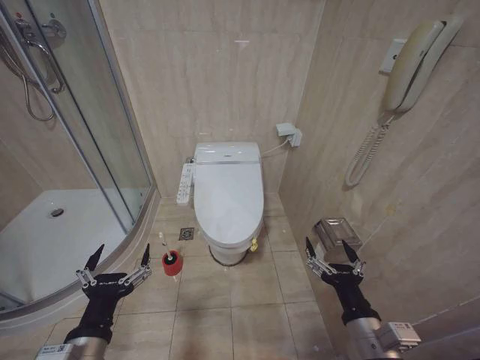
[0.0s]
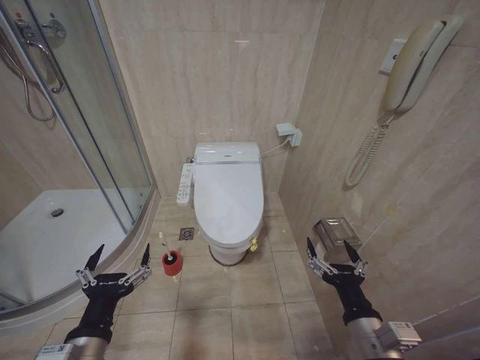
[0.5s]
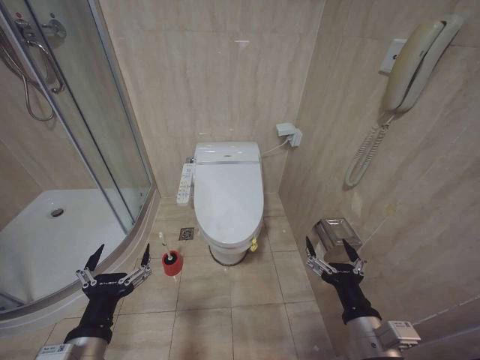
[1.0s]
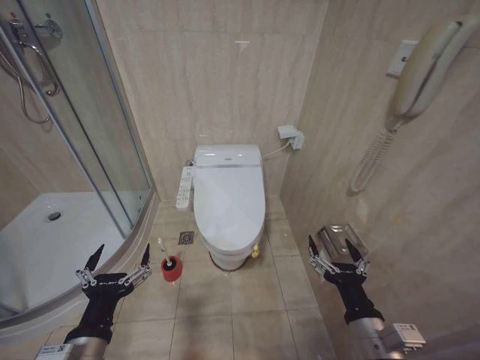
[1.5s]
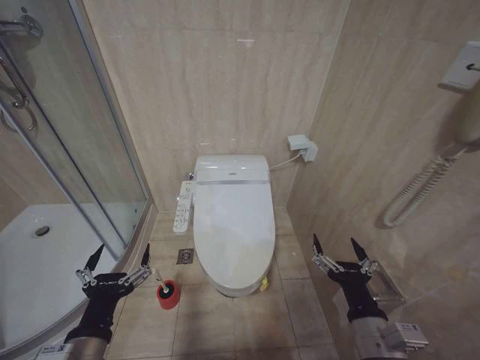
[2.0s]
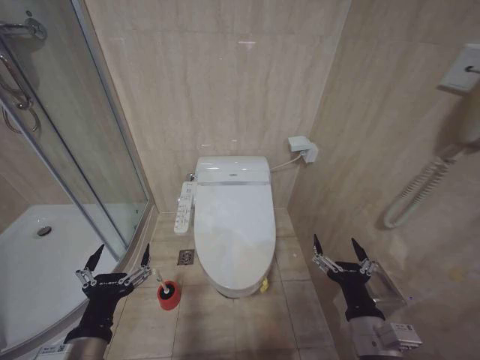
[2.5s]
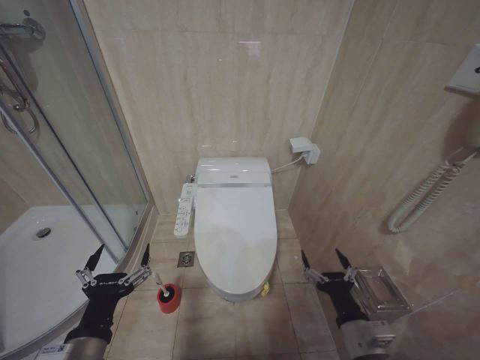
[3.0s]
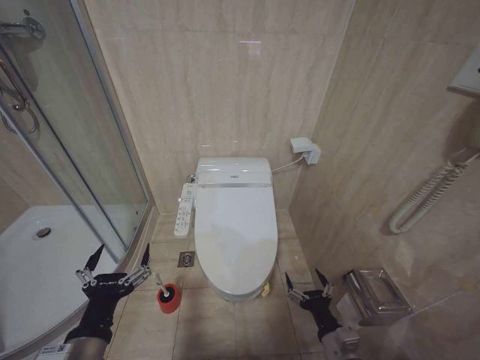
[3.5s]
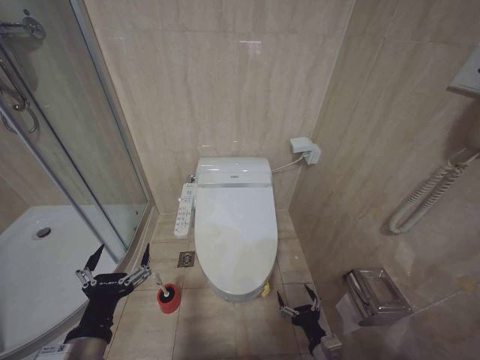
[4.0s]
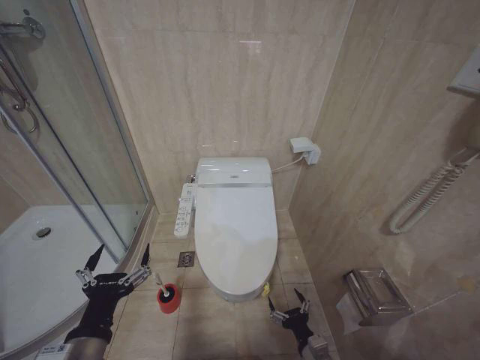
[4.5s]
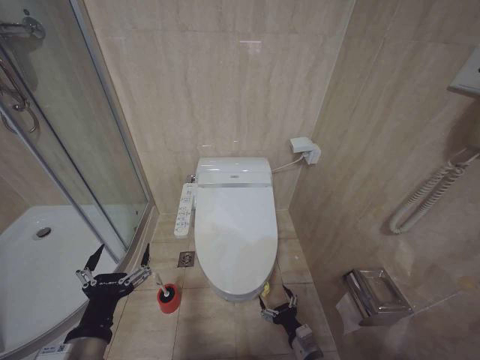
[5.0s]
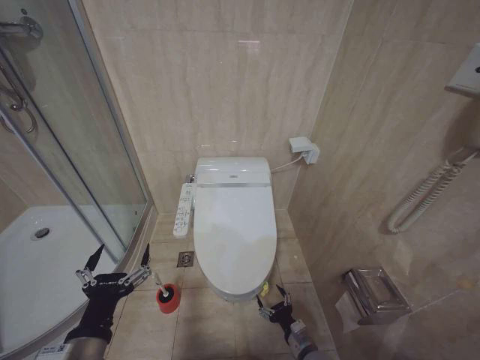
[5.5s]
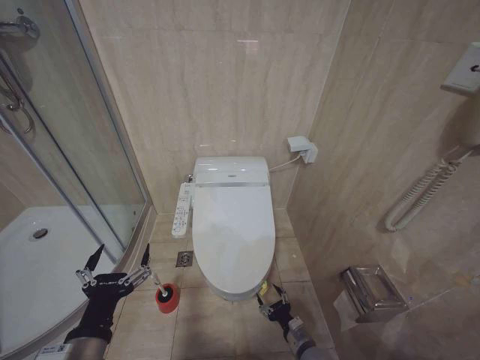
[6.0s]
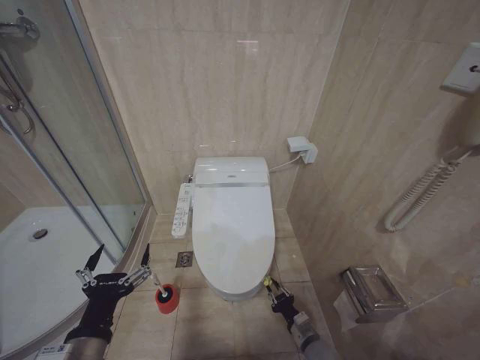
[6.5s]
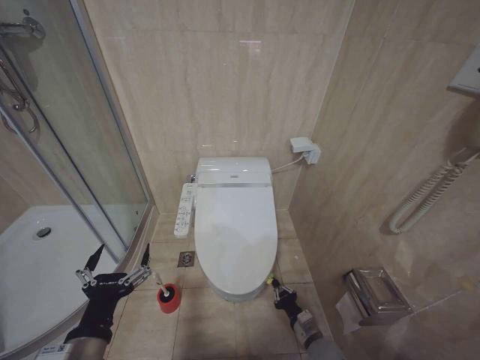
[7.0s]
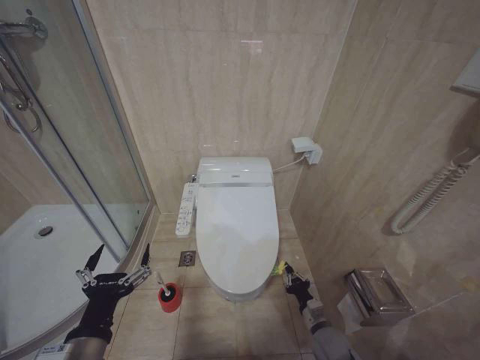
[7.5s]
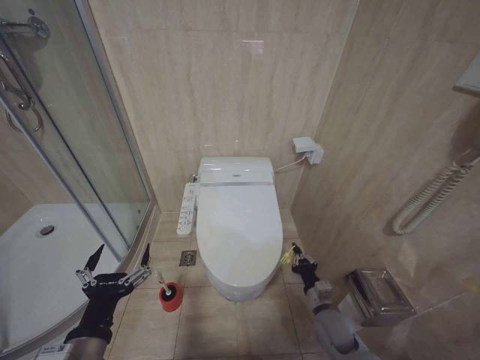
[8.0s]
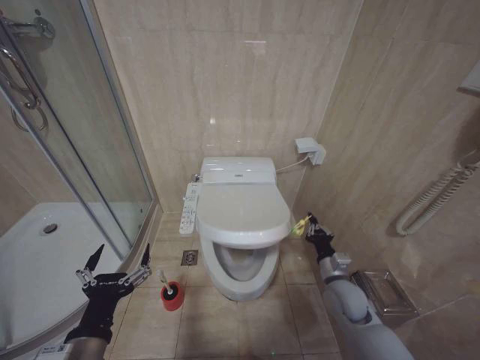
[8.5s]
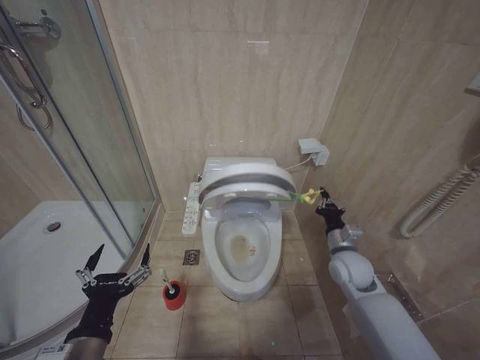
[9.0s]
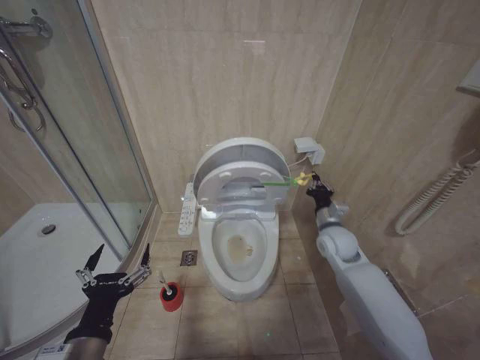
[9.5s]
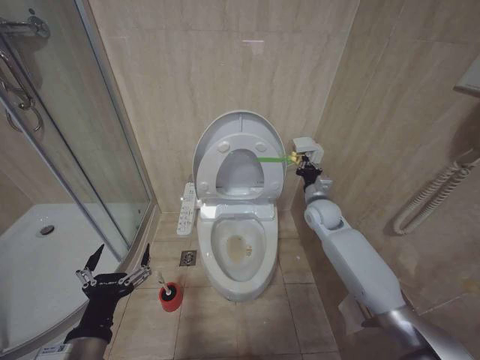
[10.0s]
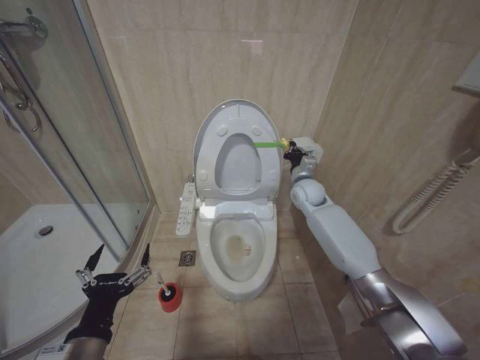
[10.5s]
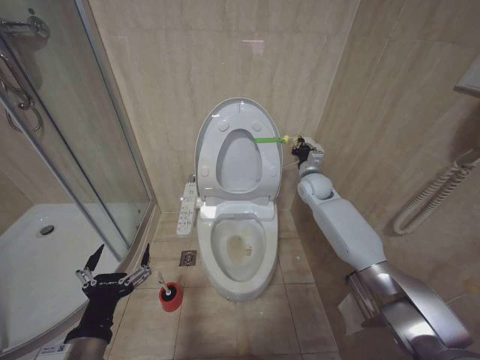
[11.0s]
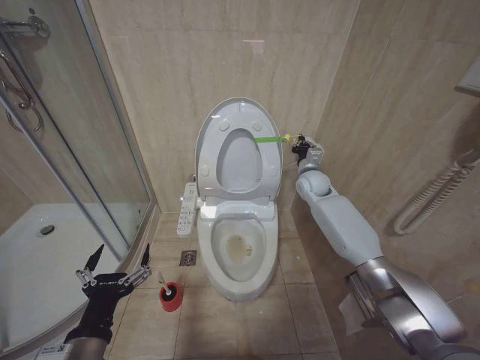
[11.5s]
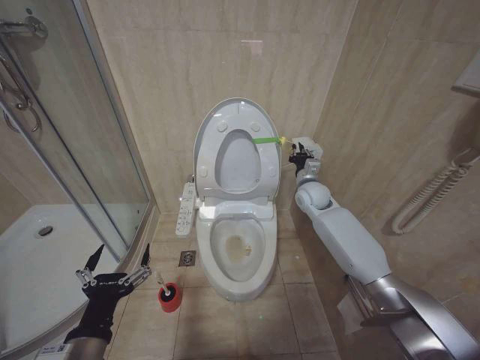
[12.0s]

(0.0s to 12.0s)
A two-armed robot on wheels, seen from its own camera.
Task of the whole recording: Open the toilet lid, clean the toilet bowl with a toilet brush, close the toilet lid, and flush.
2.0s - 4.0s: The right gripper goes roughly 15 cm downward.
4.0s - 6.0s: The right gripper moves downward and forward, roughly 10 cm.
6.0s - 8.0s: The right gripper is displaced upward and forward by some 10 cm, and closes its fingers.
8.0s - 10.0s: The right gripper is displaced upward and forward by about 30 cm.
10.0s - 12.0s: The right gripper goes approximately 5 cm forward.

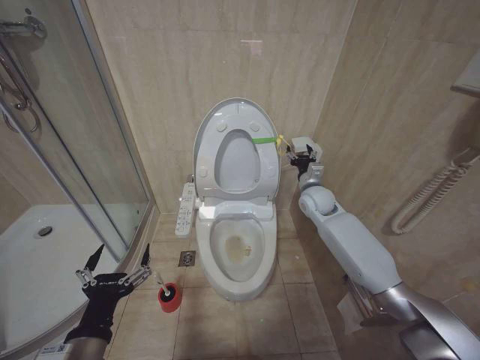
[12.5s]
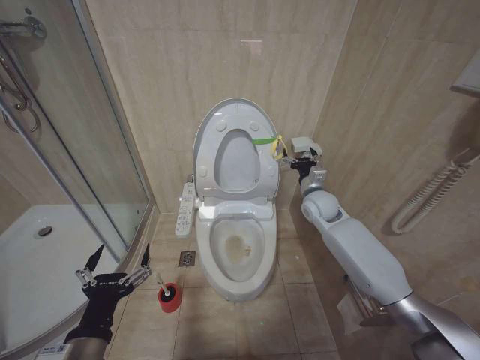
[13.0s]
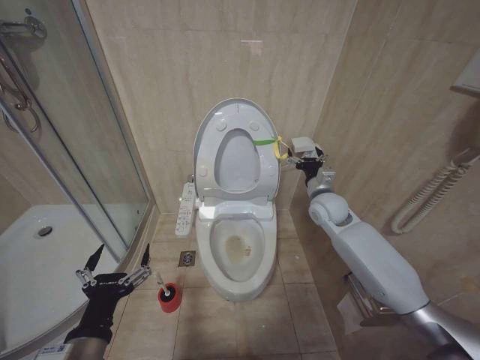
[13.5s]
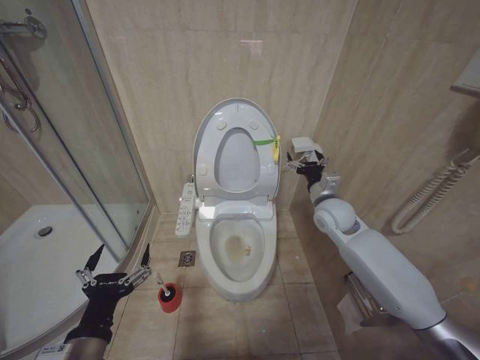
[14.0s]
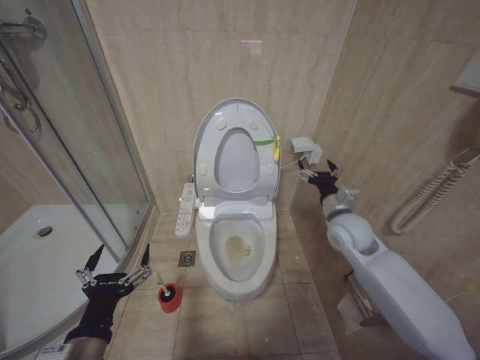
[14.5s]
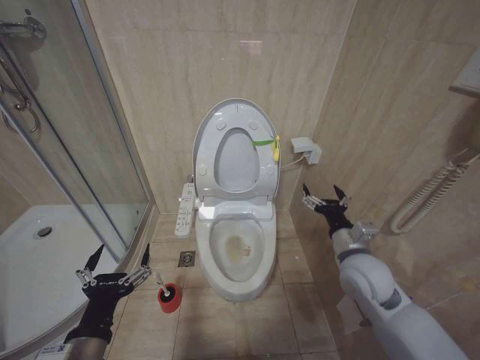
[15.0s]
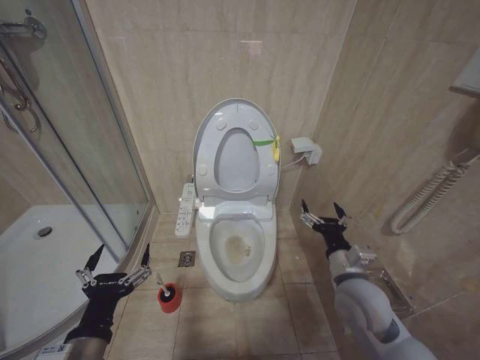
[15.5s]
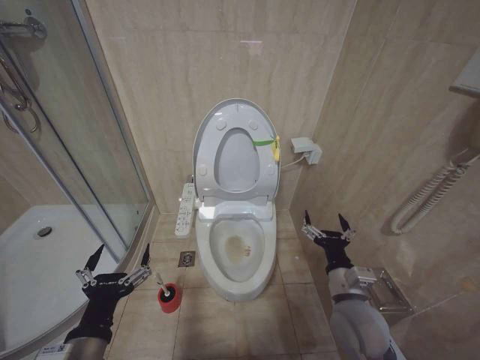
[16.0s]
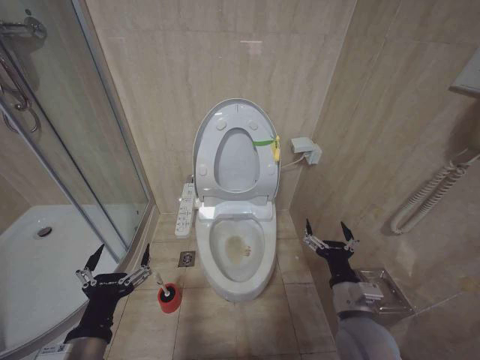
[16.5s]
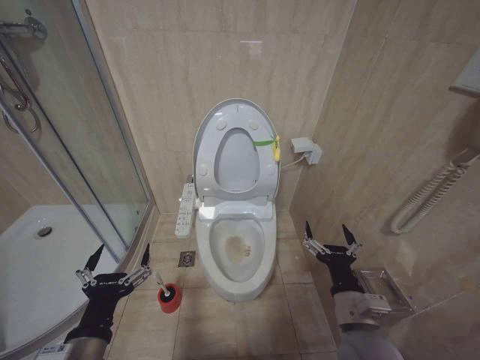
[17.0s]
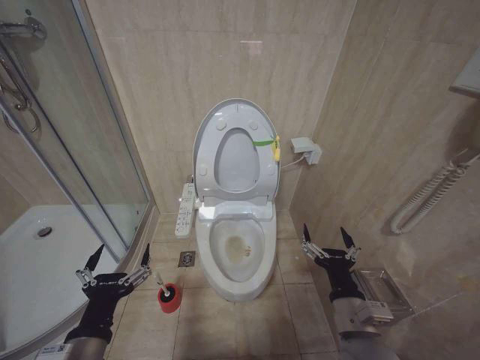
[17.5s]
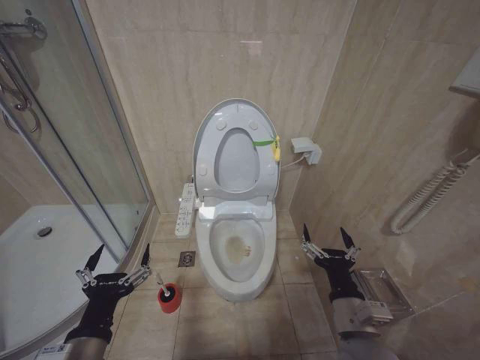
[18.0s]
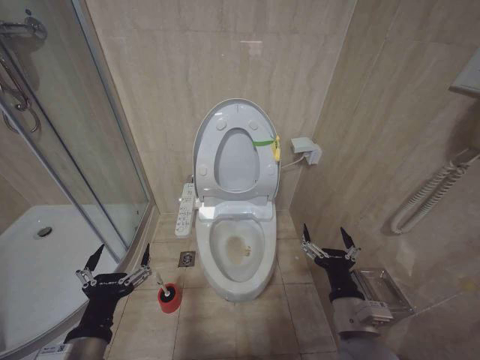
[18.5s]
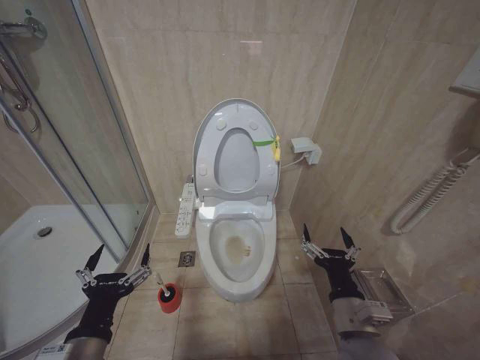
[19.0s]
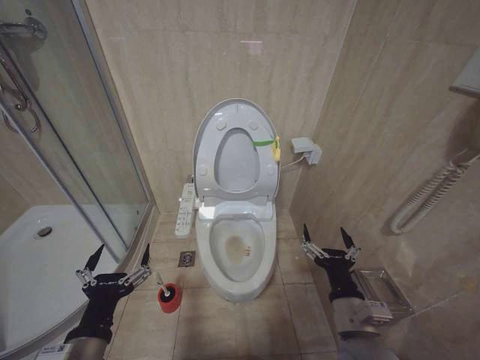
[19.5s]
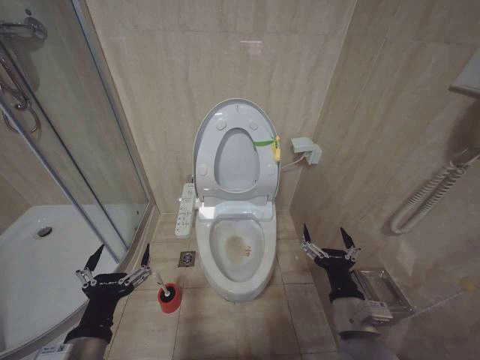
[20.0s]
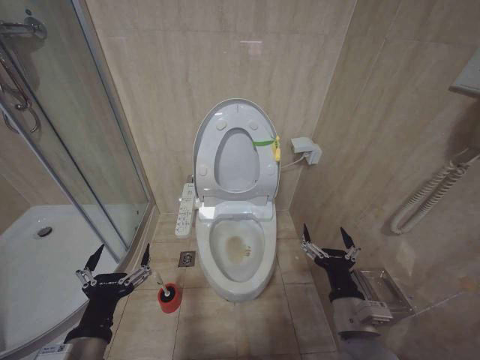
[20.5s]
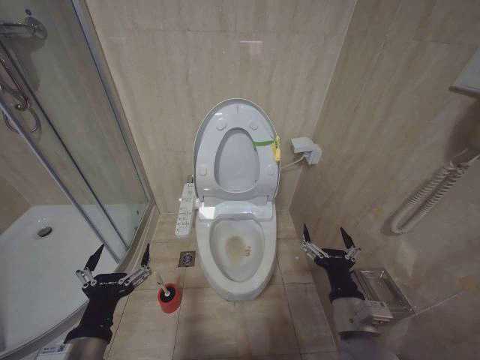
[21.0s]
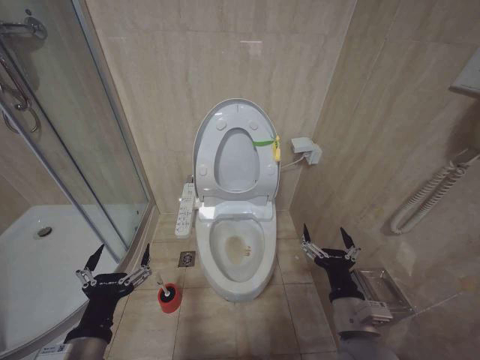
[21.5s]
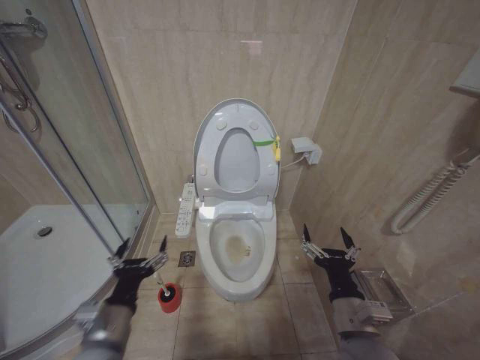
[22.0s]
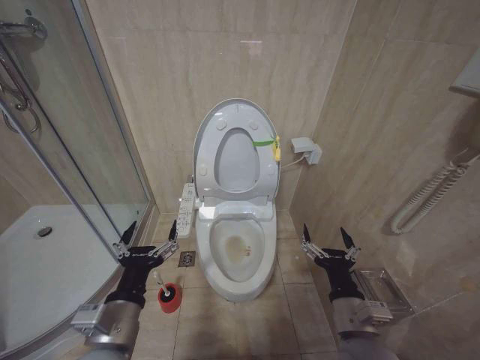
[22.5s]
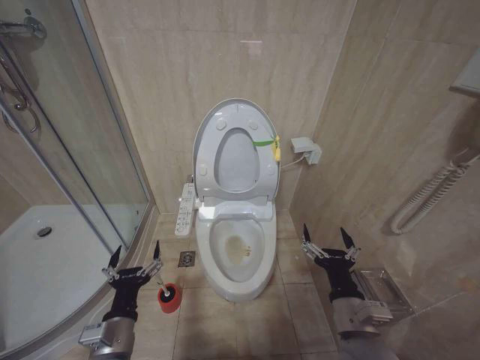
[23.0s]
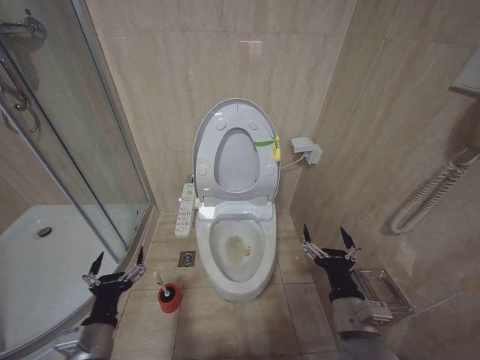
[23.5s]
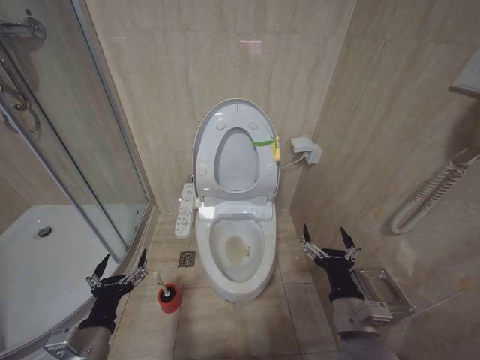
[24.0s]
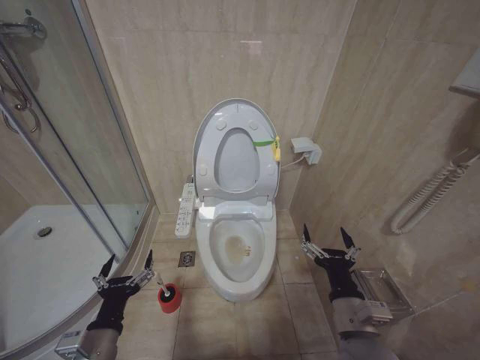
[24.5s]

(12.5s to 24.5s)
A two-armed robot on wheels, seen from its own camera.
Task of the whole recording: Open the toilet lid, clean the toilet bowl with a toilet brush, close the toilet lid, and flush.
12.5s - 14.5s: The right gripper heads backward, covering about 10 cm, and opens its fingers.
14.5s - 16.5s: The right gripper goes about 20 cm backward and downward.
16.5s - 18.5s: The right gripper changes place by some 5 cm.
18.5s - 20.5s: Neither gripper changes place.
20.5s - 22.5s: The left gripper moves approximately 5 cm.
22.5s - 24.5s: The left gripper goes approximately 10 cm downward and to the left.

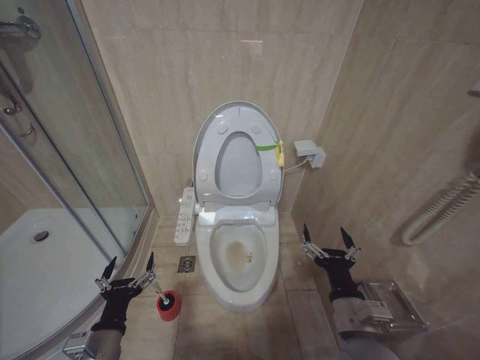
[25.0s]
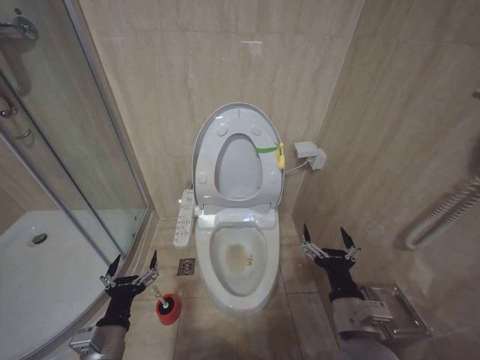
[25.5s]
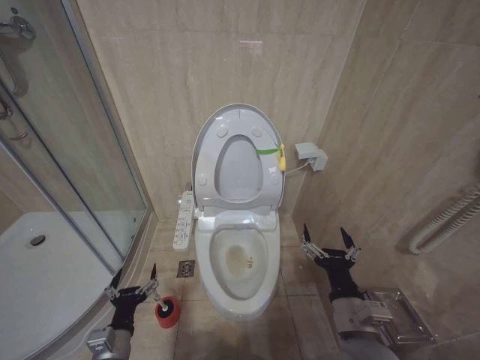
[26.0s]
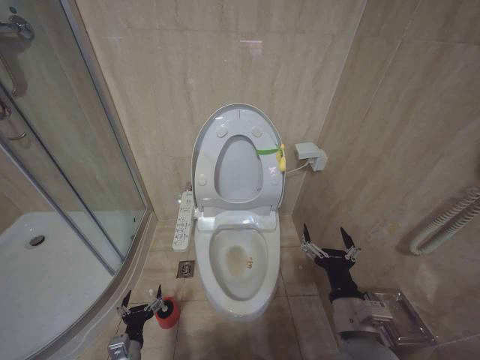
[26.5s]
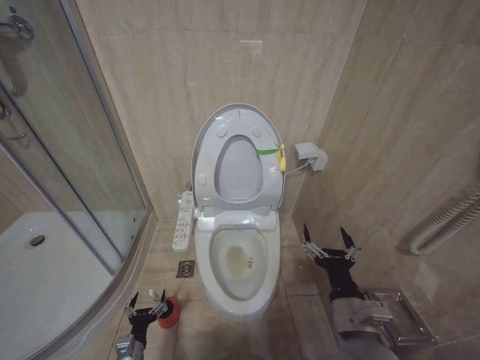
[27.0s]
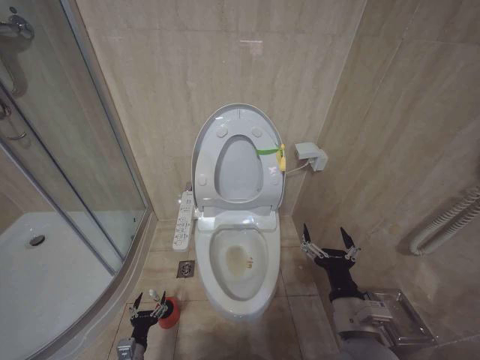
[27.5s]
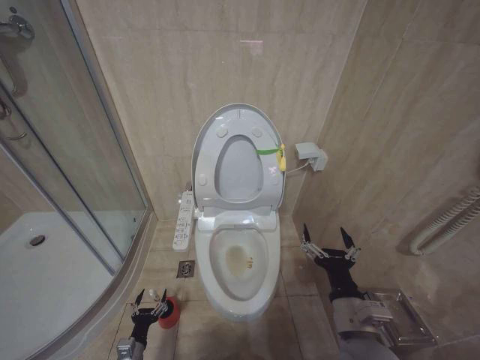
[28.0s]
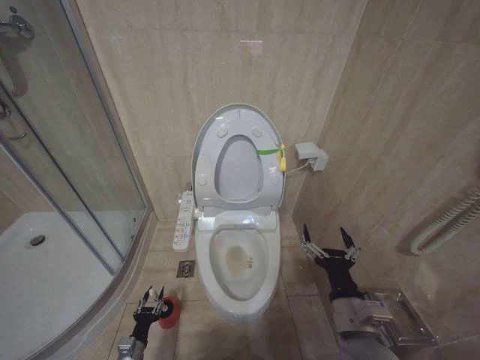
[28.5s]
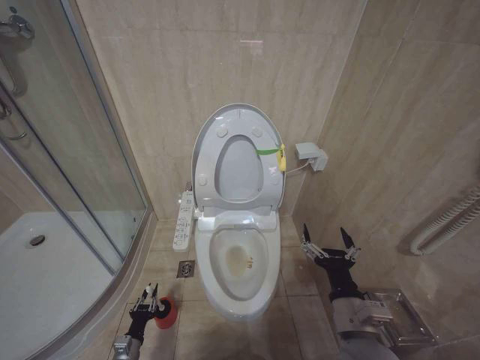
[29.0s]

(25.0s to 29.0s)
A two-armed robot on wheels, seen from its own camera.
Task of the whole recording: Open the toilet lid, clean the toilet bowl with a toilet brush, close the toilet lid, and flush.
25.0s - 27.0s: The left gripper travels downward by about 20 cm.
27.0s - 29.0s: The left gripper moves some 5 cm, and closes.
